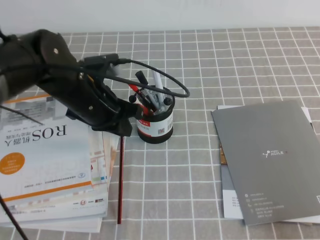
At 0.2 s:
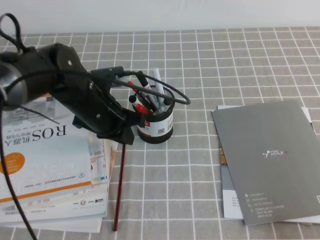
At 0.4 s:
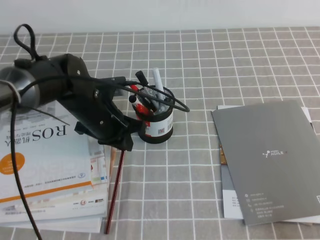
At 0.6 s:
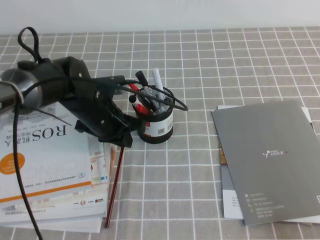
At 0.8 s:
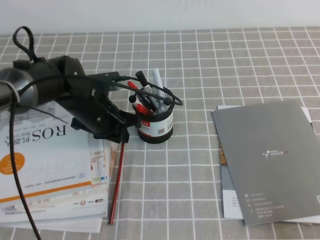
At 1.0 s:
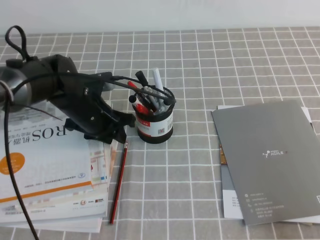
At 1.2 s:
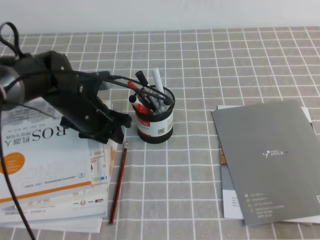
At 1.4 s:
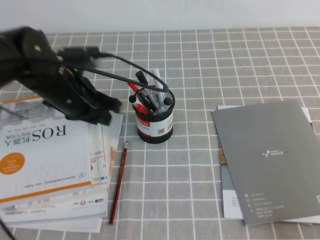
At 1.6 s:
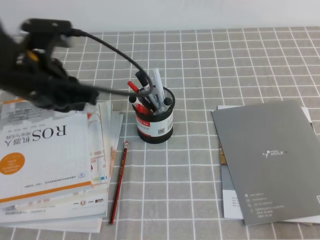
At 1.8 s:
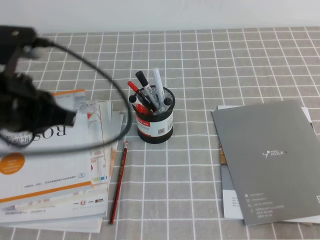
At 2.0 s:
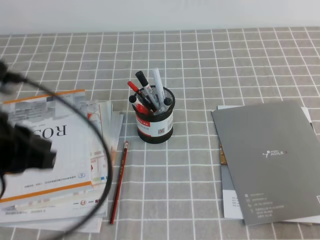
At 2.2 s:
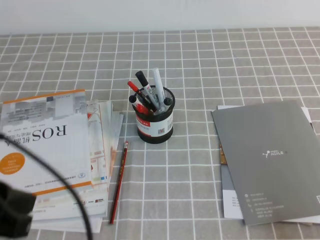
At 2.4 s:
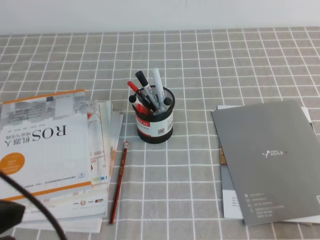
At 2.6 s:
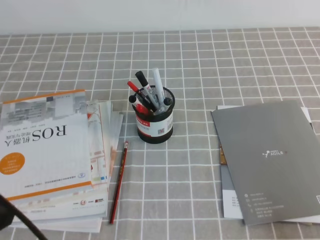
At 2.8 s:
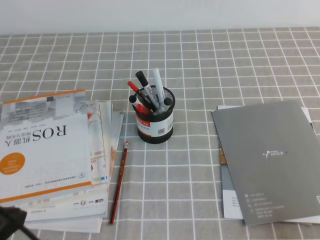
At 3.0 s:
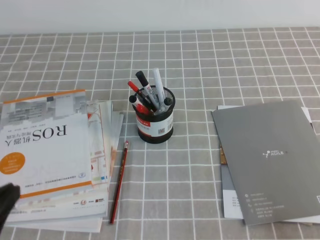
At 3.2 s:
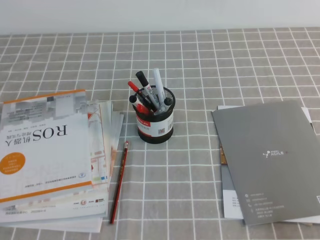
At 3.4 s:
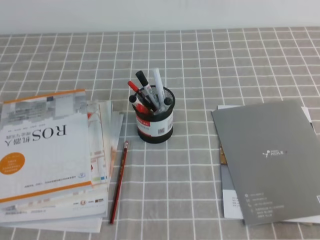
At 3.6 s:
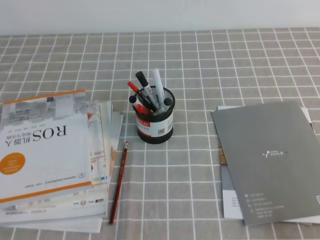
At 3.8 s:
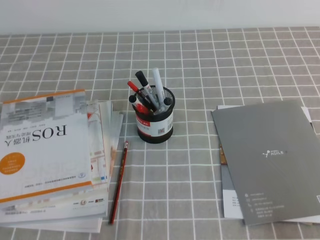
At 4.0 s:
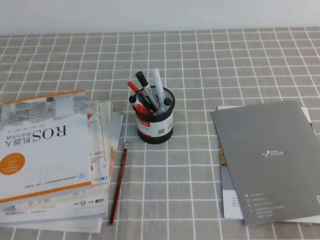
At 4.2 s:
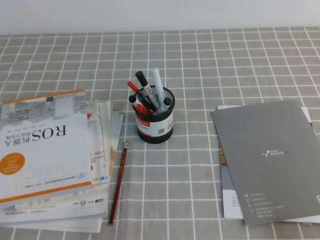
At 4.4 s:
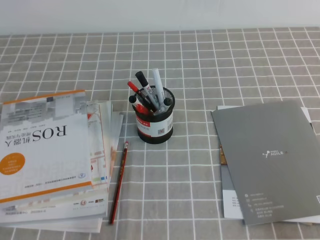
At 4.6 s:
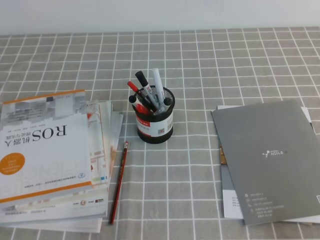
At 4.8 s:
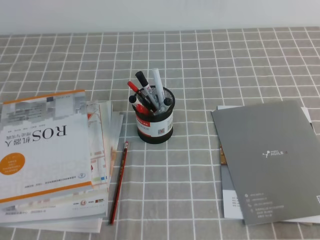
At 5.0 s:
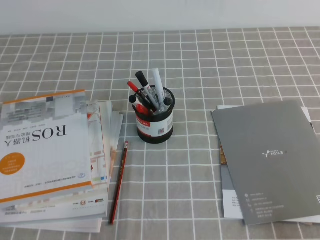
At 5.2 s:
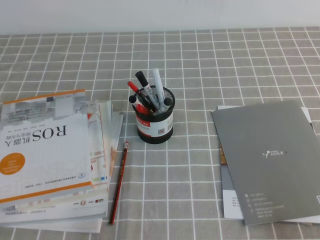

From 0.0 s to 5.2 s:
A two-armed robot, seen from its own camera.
Step, from 0.0 s to 5.2 s: Pick up the pen from the pen holder.
From 0.0 s to 1.8 s: The left gripper travels to the left and upward by roughly 10 cm, and opens and closes again.
From 1.8 s to 3.4 s: The left gripper travels backward, downward and to the left by approximately 25 cm.
From 3.4 s to 5.2 s: The left gripper goes some 5 cm downward.
